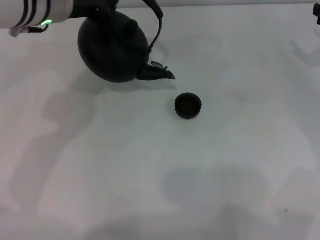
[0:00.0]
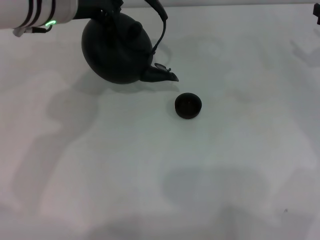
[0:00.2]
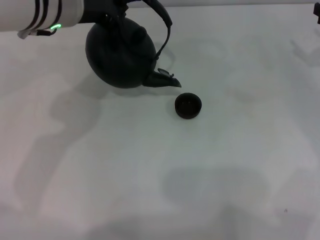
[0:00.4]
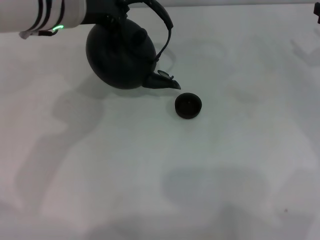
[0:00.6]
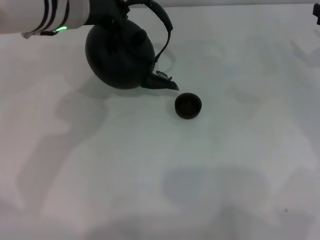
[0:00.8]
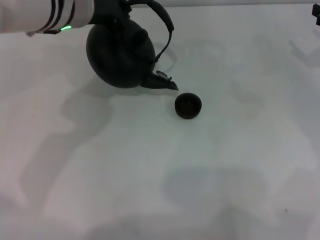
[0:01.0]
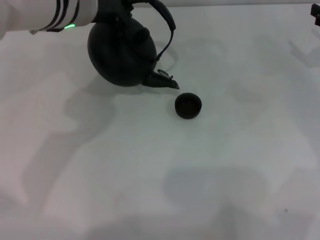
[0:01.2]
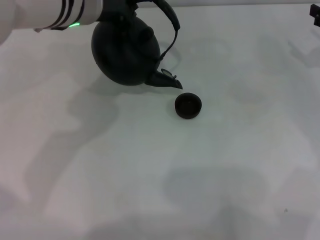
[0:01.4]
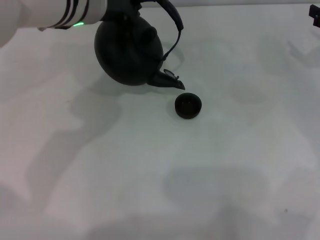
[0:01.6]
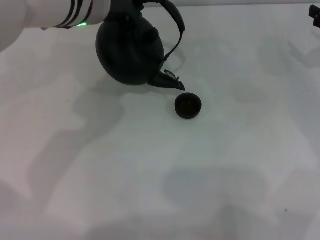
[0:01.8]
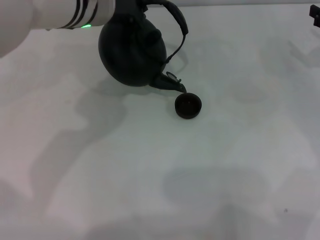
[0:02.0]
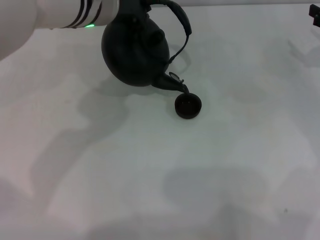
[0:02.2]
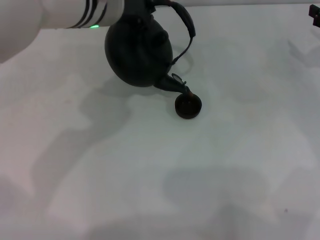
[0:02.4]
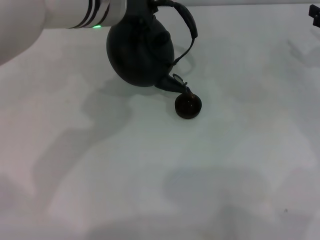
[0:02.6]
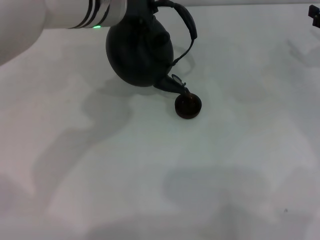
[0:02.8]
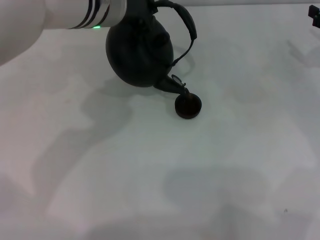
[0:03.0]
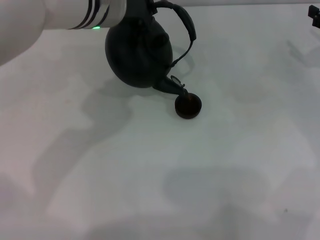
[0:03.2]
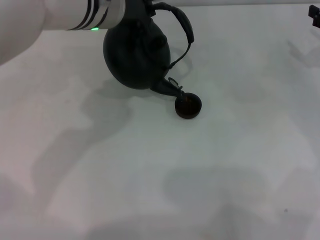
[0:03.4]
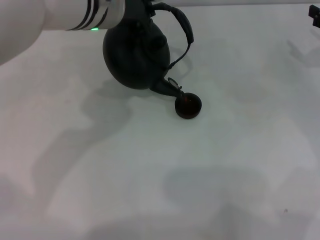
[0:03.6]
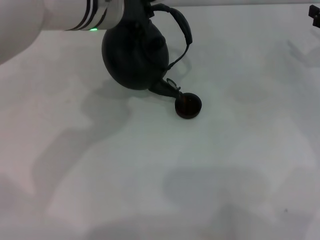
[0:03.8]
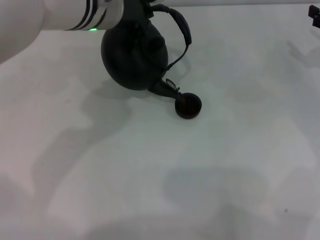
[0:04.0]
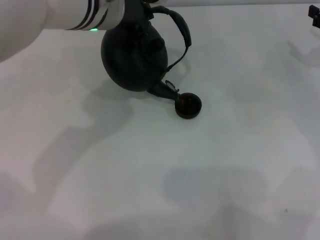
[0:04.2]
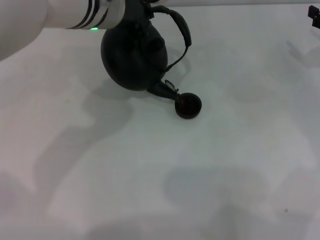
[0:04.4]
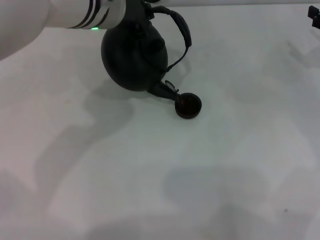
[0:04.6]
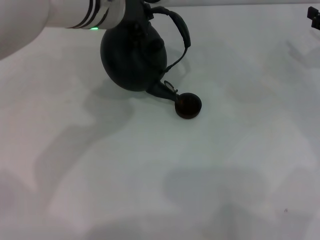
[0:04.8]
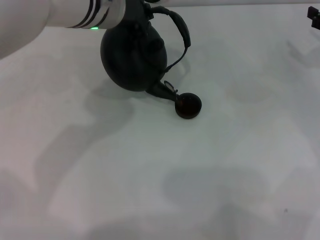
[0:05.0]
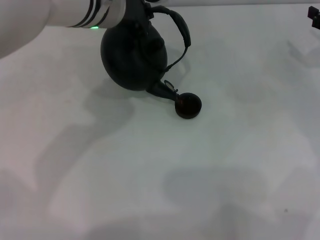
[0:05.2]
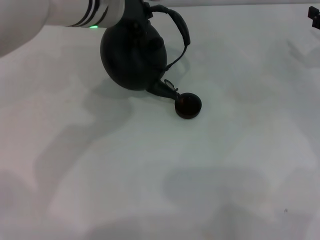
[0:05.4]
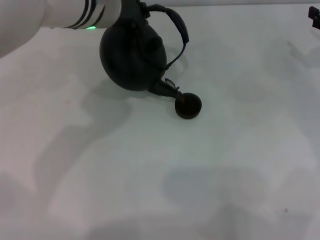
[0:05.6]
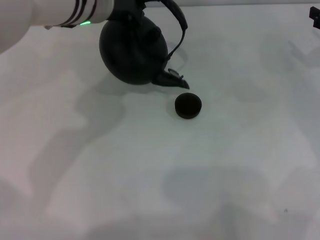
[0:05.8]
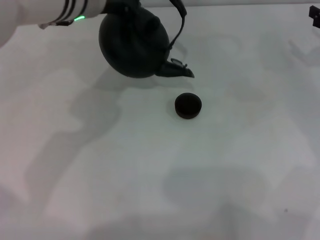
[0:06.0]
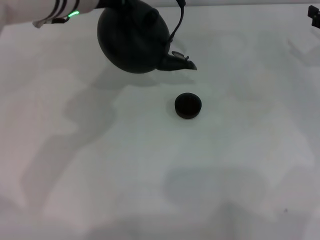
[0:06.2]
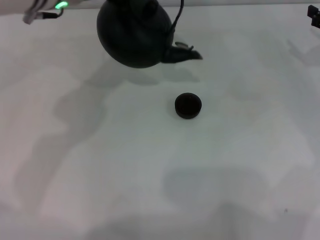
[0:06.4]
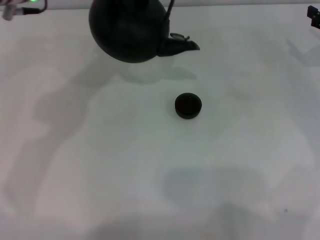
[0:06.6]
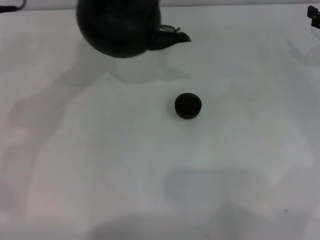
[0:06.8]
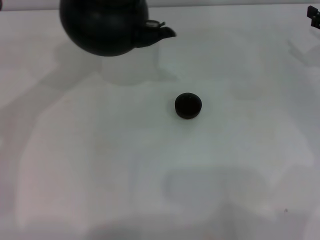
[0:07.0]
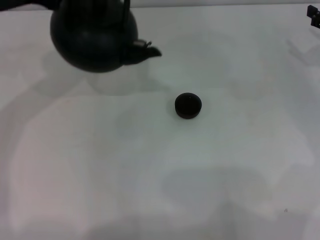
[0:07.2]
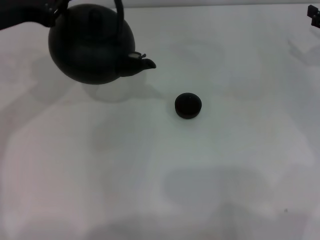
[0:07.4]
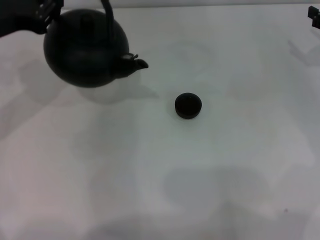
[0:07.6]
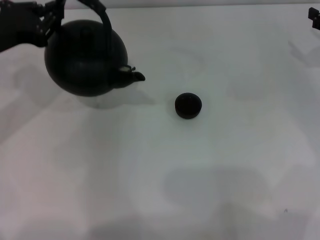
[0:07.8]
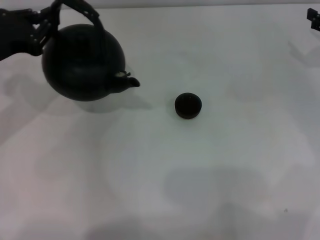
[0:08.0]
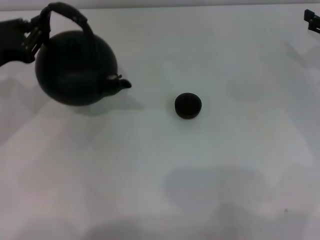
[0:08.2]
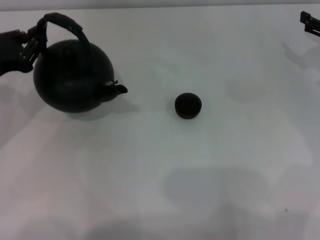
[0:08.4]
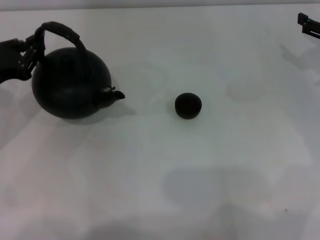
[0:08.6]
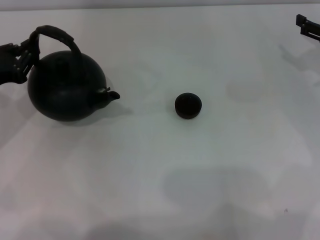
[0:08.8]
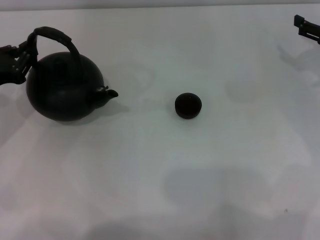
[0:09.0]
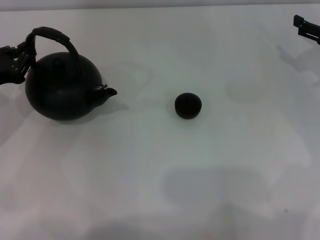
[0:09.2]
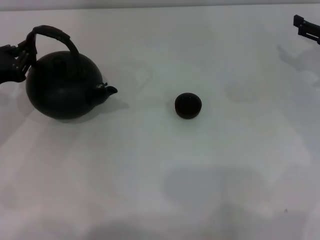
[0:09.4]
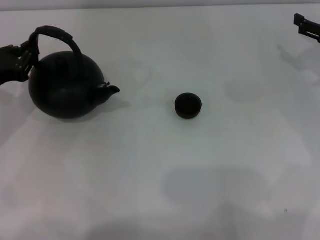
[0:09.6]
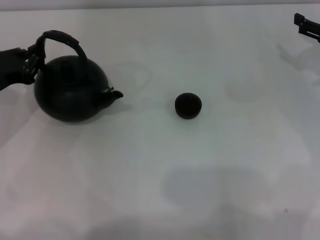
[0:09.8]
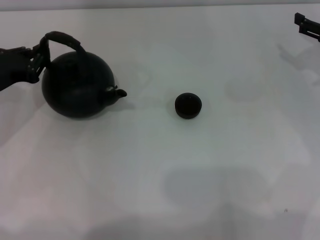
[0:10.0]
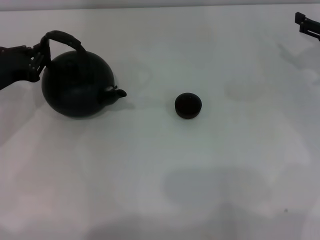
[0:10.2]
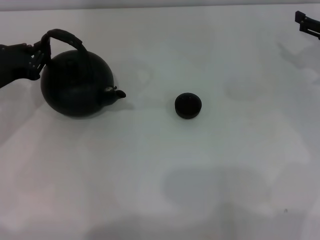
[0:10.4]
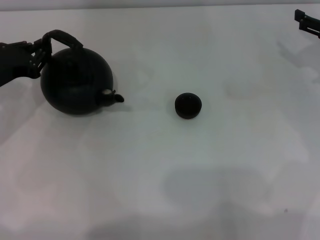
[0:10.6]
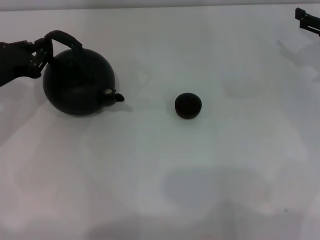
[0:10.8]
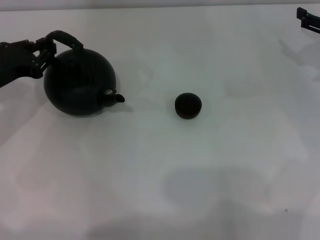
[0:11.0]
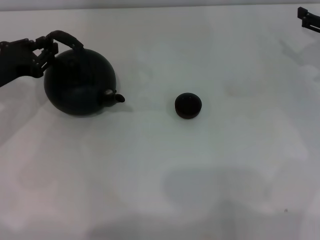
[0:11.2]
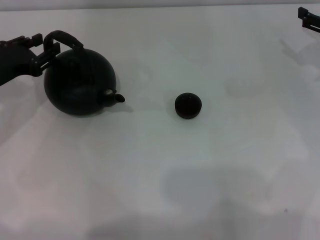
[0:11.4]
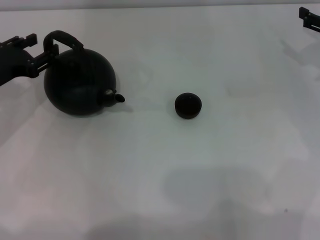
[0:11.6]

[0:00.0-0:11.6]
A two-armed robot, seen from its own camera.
Task of the whole recording: Grasp the handle of the teapot with one hand and pour tea into the teacup.
Step, 0:00.0 to 0:05.8: Pour tea into the teacup with the left gripper.
0:00.0 to 0:01.4: There are only small adjustments of the grippers.
0:01.4 to 0:02.8: The grippers move only a little.
0:02.8 to 0:04.4: Both grippers stay about where they are.
0:04.4 to 0:05.8: The grippers move only a little.
0:05.8 to 0:07.2: The left gripper heads to the left, covering about 15 cm.
0:07.2 to 0:08.8: The left gripper travels downward and to the left by roughly 15 cm.
0:08.8 to 0:10.2: The grippers move only a little.
0:10.2 to 0:11.6: The left gripper opens its fingers.

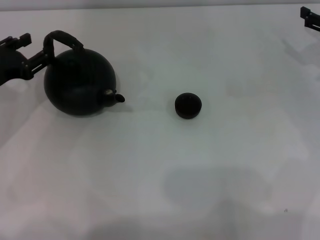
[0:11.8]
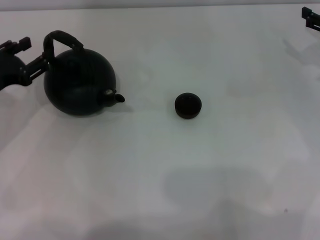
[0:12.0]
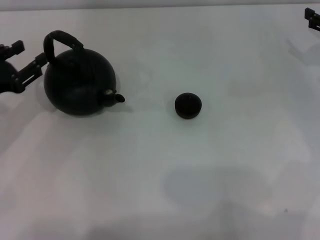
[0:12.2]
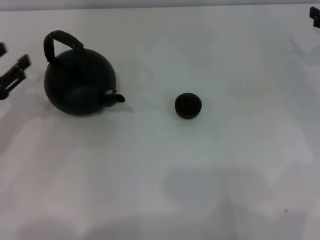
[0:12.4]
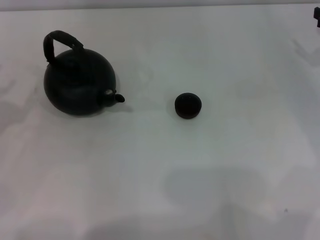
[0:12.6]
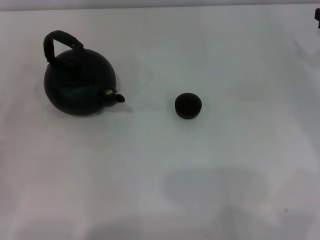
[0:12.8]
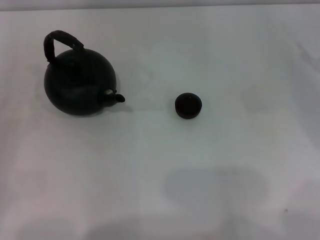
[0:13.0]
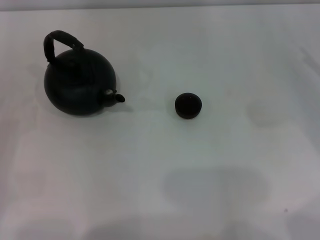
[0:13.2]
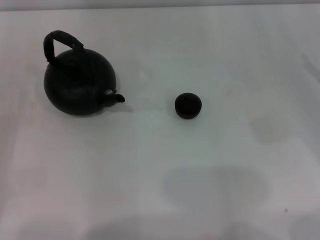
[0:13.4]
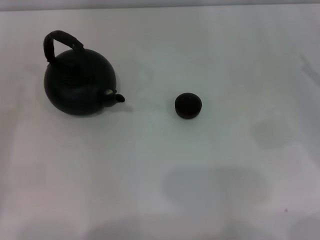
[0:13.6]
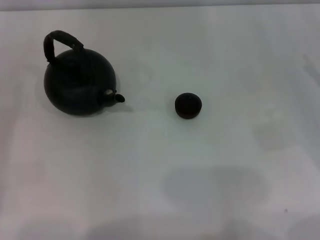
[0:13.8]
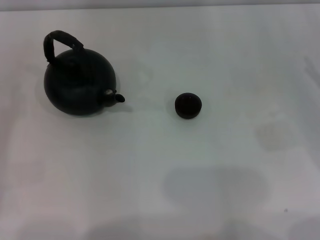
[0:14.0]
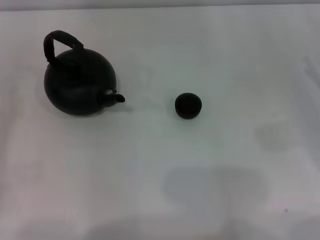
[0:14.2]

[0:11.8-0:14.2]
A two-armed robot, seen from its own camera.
Task of the whole recording: Grasp the handle of the teapot with one hand and pour tea into the teacup.
0:11.8 to 0:13.0: The left gripper travels backward and to the left by some 15 cm.
